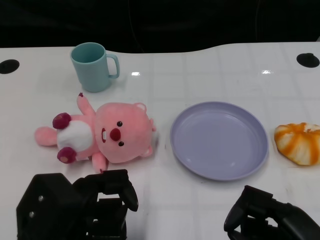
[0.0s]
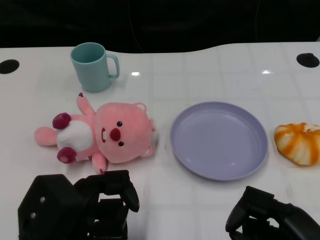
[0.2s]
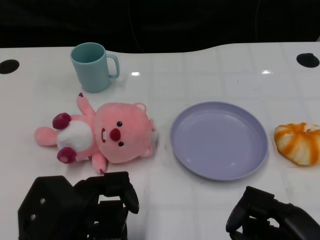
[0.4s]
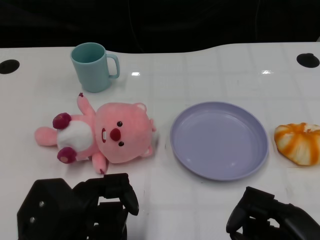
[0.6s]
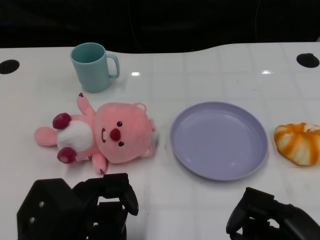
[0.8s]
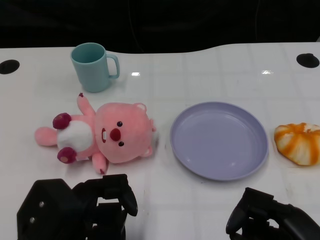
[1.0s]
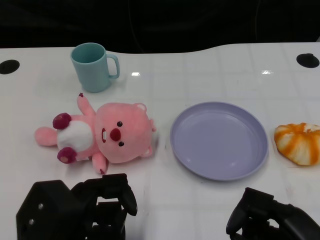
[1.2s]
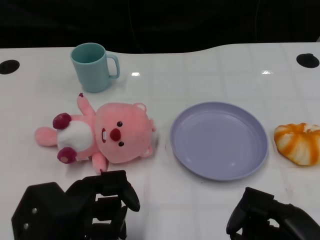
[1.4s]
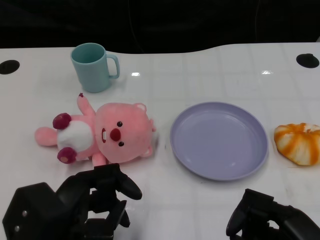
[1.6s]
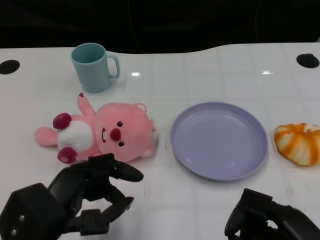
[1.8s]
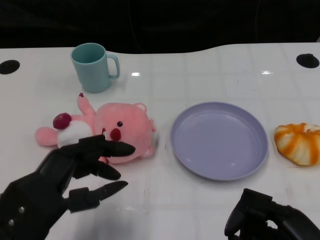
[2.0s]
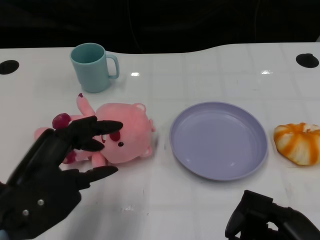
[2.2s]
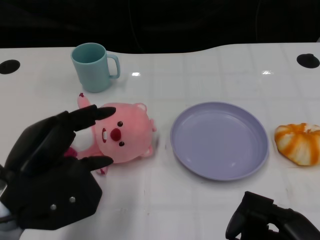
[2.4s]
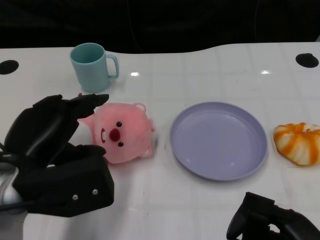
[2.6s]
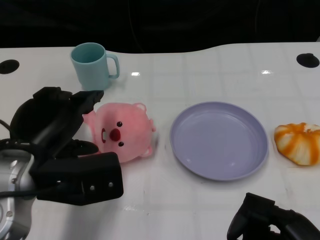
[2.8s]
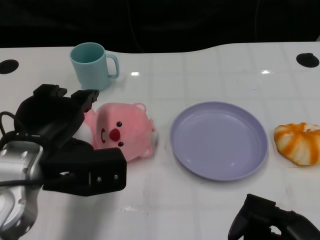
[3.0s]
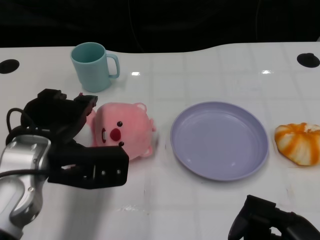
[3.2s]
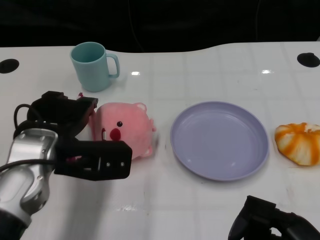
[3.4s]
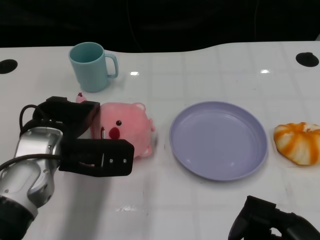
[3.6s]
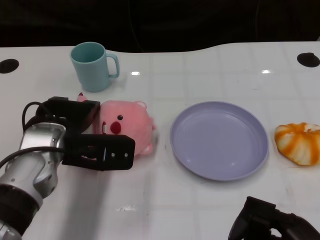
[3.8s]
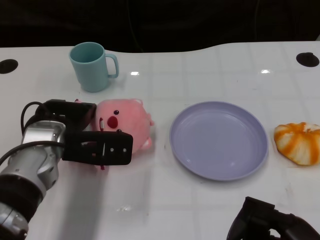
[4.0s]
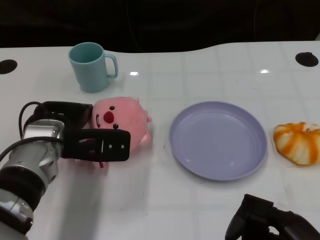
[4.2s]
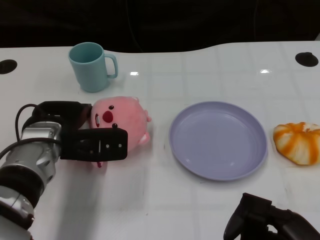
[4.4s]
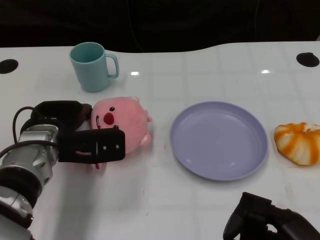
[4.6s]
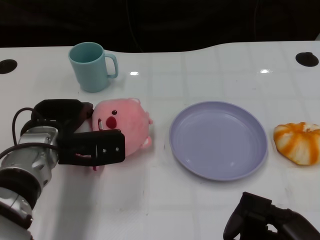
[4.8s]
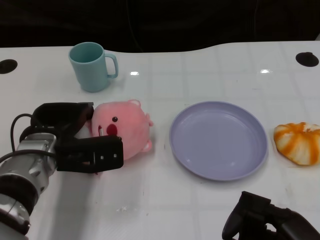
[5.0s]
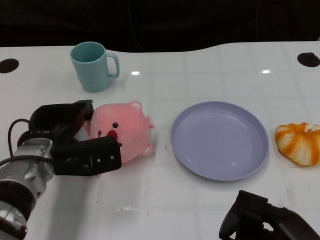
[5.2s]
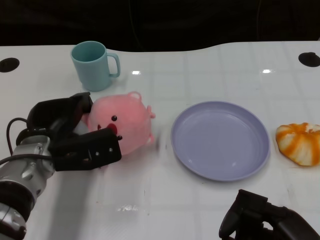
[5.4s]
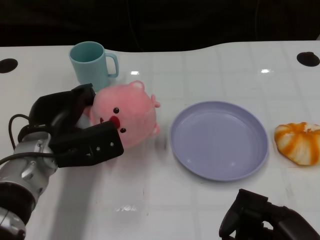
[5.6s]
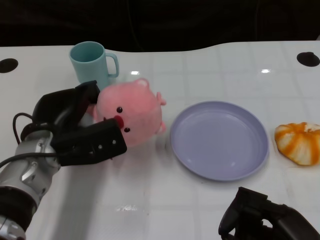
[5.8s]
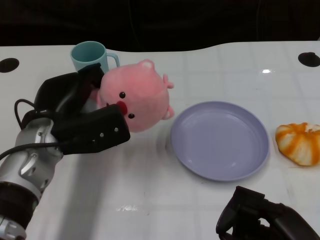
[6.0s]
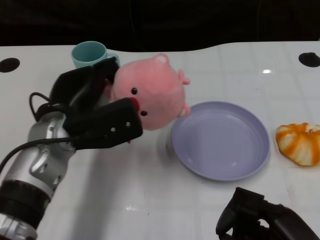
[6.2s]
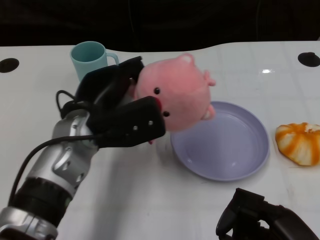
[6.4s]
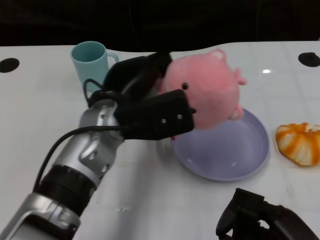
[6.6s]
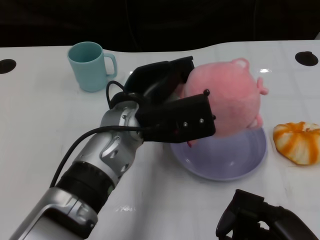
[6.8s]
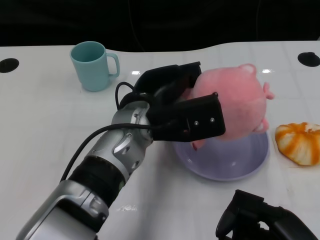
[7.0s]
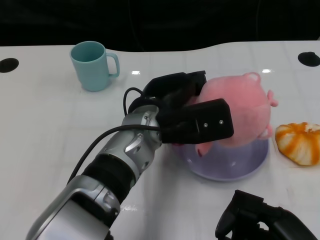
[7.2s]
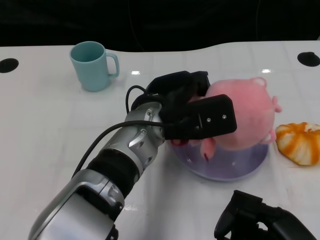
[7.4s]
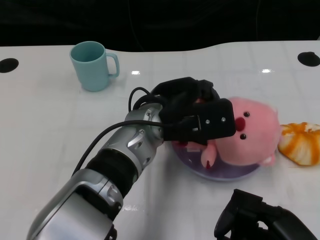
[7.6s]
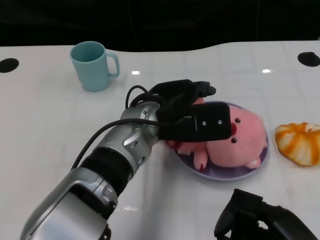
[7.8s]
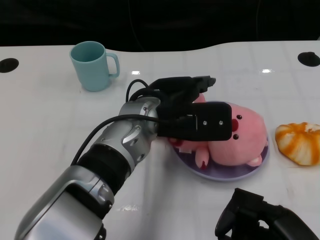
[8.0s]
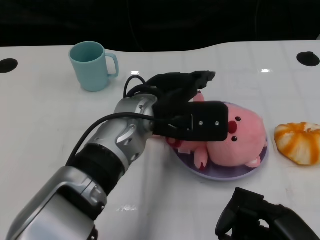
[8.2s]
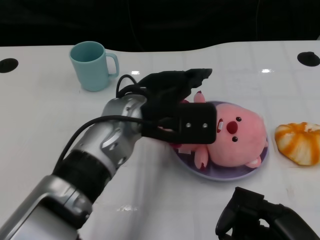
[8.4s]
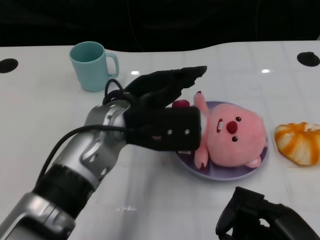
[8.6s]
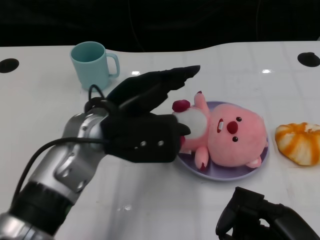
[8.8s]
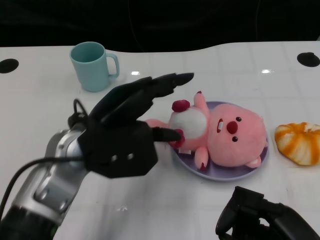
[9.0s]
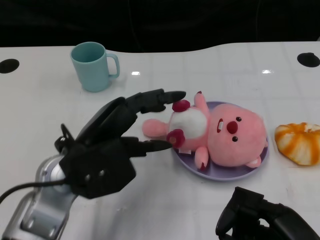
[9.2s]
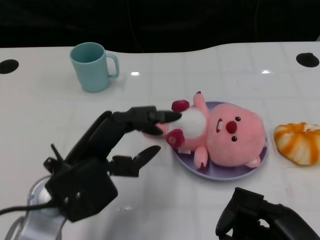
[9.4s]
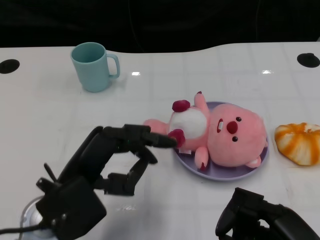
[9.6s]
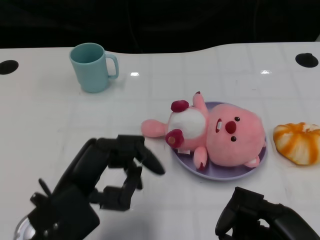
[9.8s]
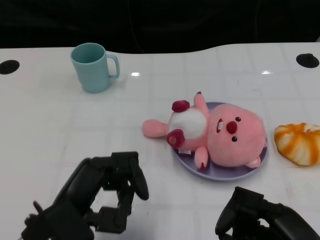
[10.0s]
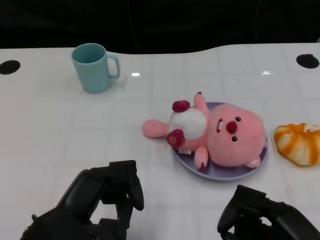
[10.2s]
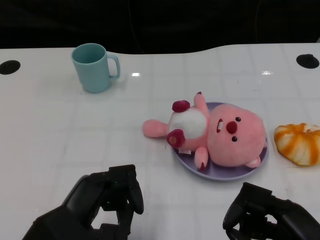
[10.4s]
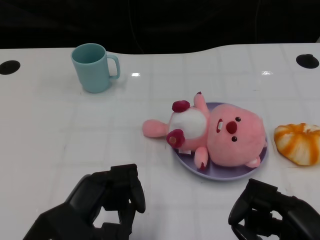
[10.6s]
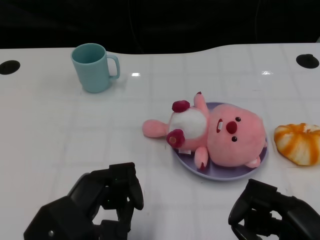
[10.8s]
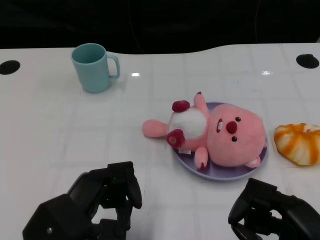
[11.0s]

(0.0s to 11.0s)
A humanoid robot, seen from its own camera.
Task of the whole recording: Pick up the doll on one side of the plate and place it into the plate.
Step, 1.2s - 5.6s: Grasp the pink doll with the left gripper.
Step, 5.8s - 8.4s: Place the pink doll into the plate with the left gripper.
1.6s - 3.2s: The left hand is displaced forward by approximately 10 cm.
3.2s - 4.8s: The left hand is displaced forward and downward by approximately 10 cm.
4.8s - 6.2s: The left hand moves roughly 5 cm.
6.2s - 7.8s: The left hand shifts about 10 cm to the right.
7.8s - 9.4s: The left hand travels to the left and backward by some 15 cm.
9.4s - 11.0s: The left hand shifts approximately 5 cm backward.

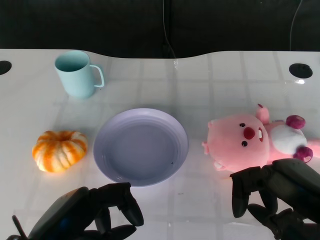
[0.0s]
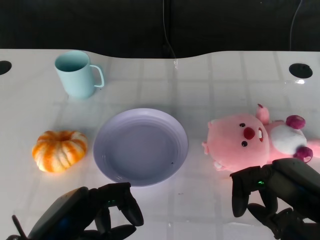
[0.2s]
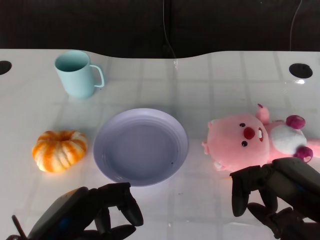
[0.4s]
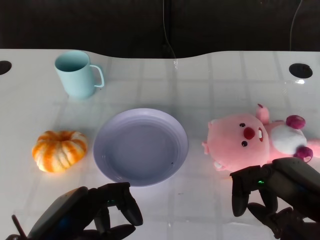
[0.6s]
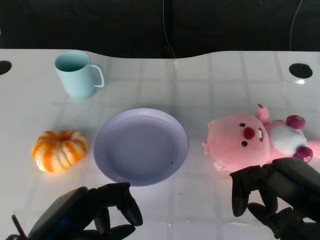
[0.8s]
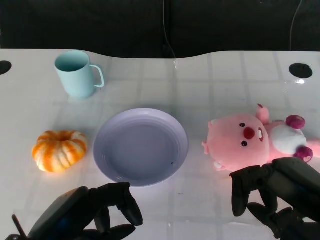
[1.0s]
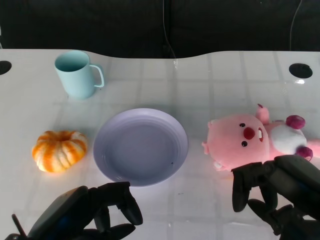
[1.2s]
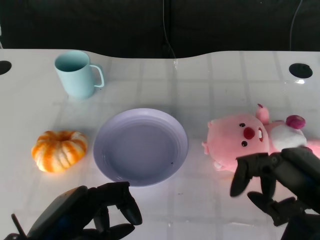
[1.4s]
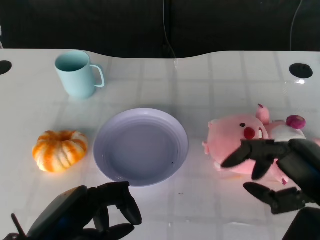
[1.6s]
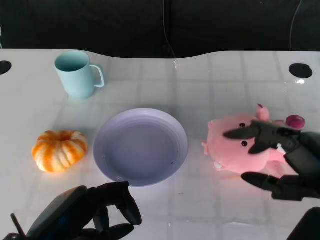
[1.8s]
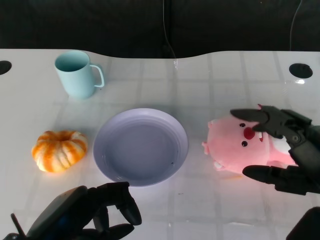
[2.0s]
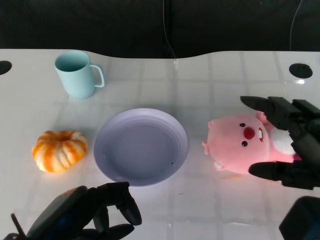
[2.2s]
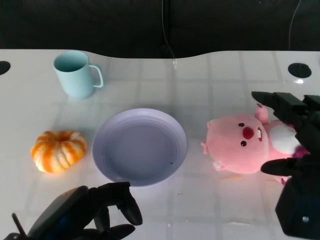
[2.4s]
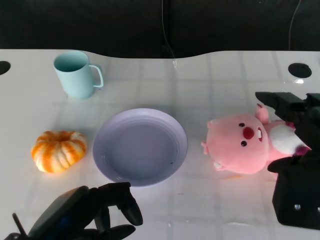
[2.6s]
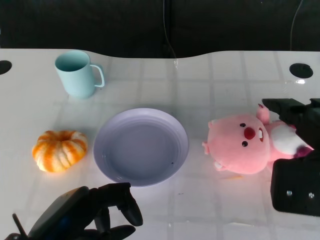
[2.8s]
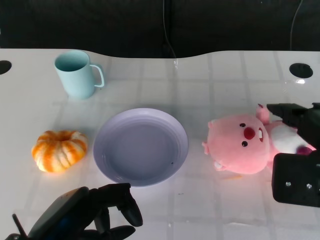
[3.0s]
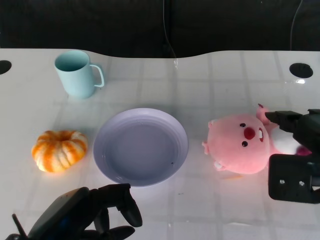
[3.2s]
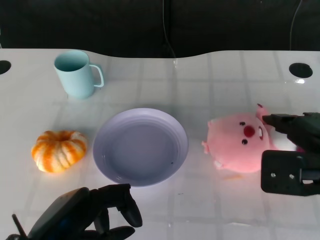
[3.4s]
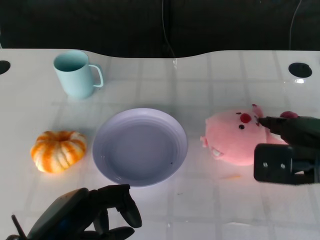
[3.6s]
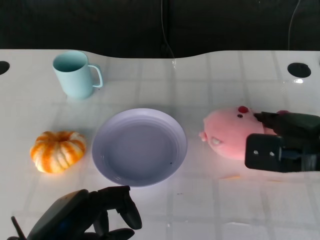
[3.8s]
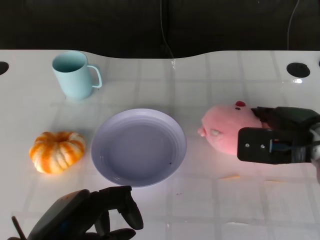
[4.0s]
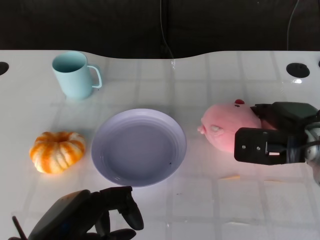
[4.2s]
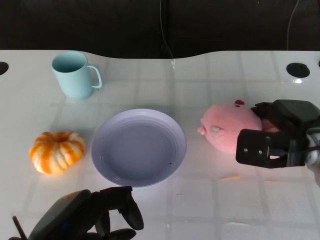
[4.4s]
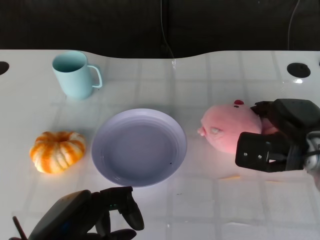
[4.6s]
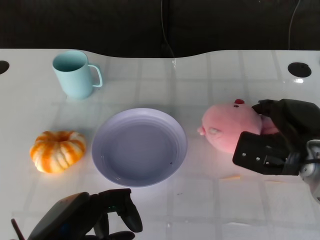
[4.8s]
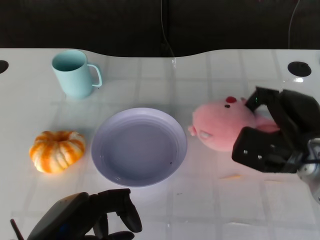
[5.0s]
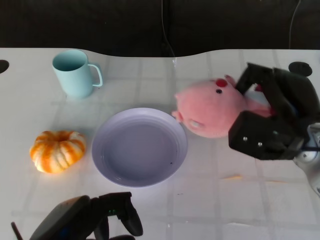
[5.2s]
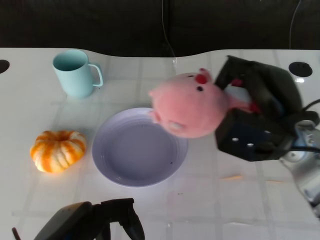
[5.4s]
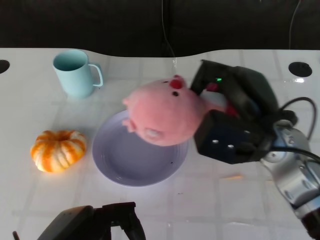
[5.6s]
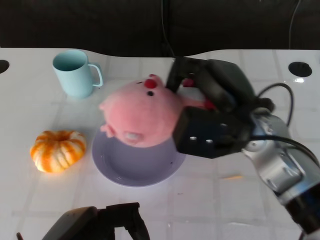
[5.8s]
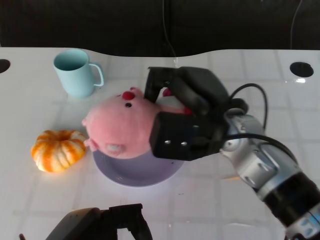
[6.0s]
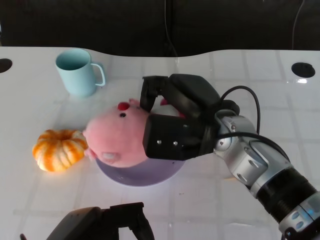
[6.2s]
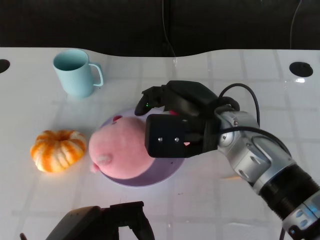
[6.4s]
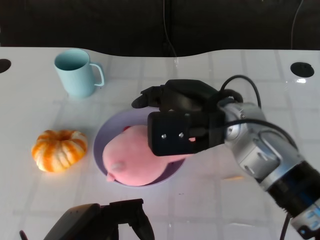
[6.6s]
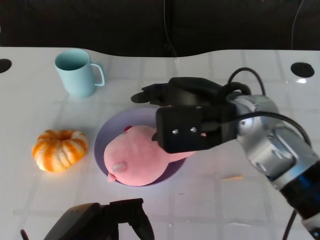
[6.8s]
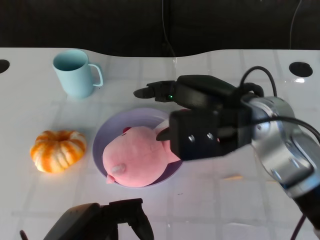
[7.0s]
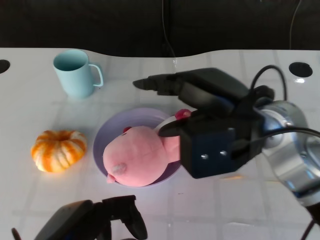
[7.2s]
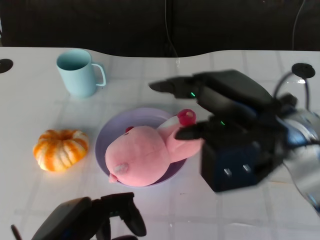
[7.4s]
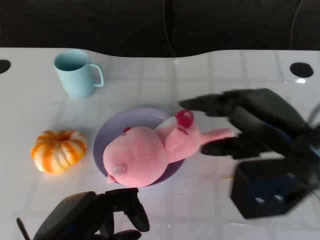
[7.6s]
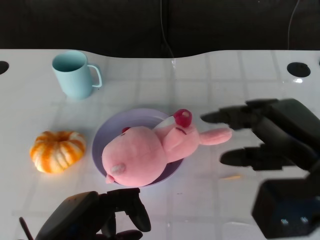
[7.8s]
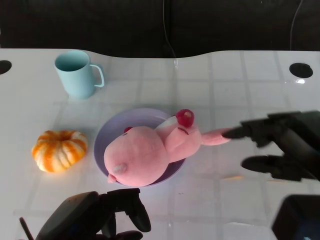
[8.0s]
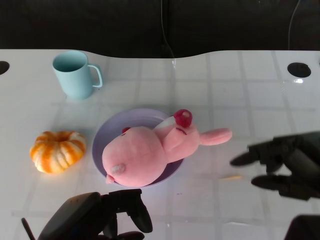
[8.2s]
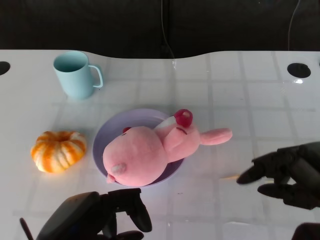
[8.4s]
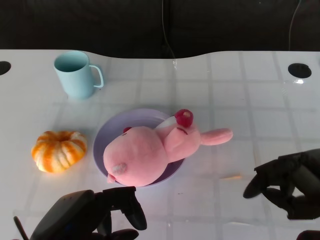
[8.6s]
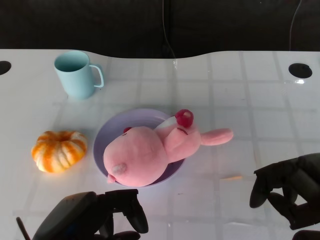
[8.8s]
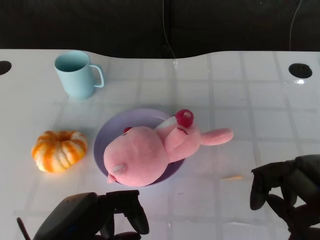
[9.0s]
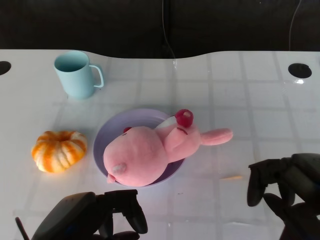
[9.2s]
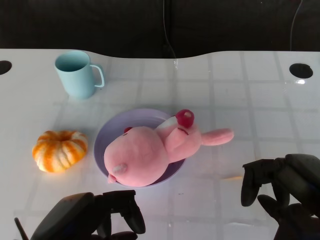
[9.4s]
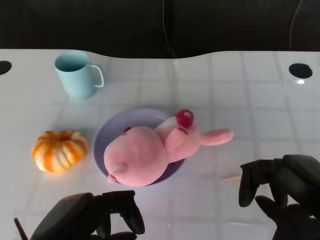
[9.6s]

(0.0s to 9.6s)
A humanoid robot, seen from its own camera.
Task of the whole recording: Pick up the doll on the other side of the plate and place it into the plate.
Step, 1.2s - 5.0s: Grasp the pink doll with the right gripper.
Step, 5.2s - 6.8s: Place the pink doll into the plate with the right gripper.
1.6s - 3.2s: The right hand goes roughly 5 cm forward.
3.2s - 4.8s: The right hand shifts some 10 cm downward and forward.
4.8s - 6.4s: The right hand moves to the left and upward, approximately 15 cm.
6.4s - 8.0s: The right hand shifts approximately 20 cm to the right and backward.
8.0s - 9.6s: The right hand shifts by approximately 5 cm.

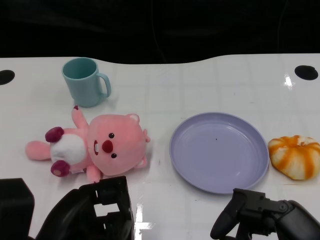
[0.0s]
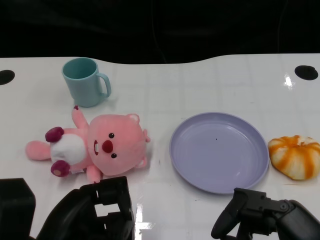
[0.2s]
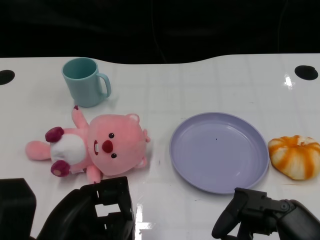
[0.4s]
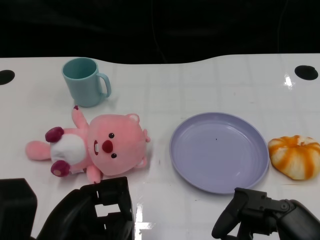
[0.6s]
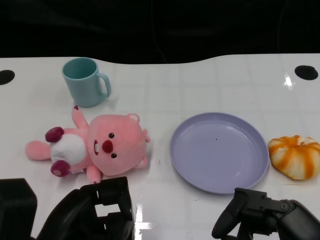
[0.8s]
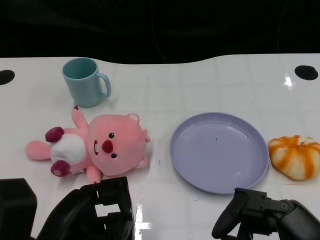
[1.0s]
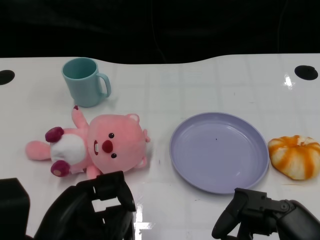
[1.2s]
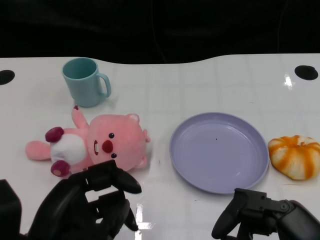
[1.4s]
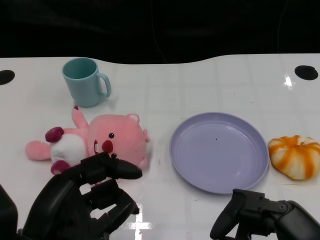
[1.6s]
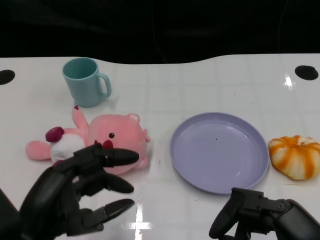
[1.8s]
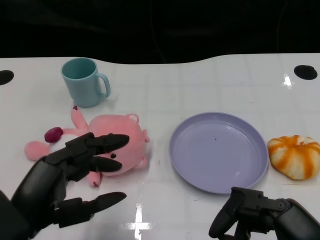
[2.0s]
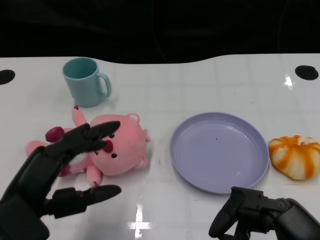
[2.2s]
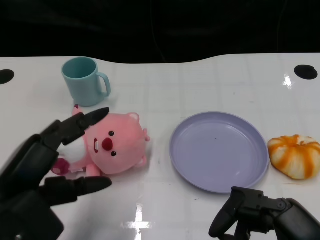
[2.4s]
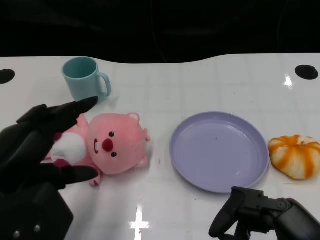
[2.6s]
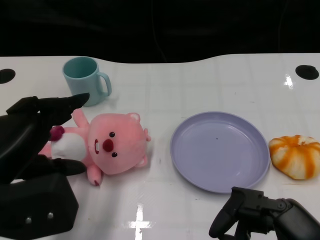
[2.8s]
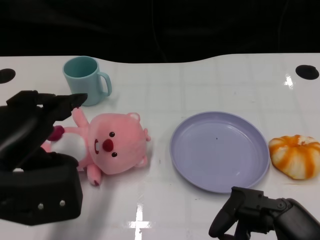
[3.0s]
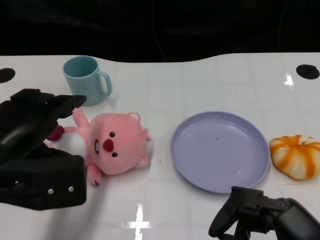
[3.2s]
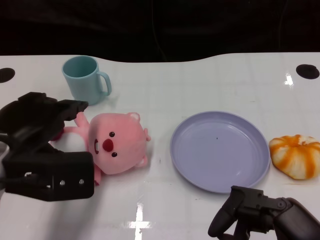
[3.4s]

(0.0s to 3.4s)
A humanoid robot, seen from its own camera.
Task of the whole recording: Pick up the doll on one side of the plate and place it into the plate.
1.6s - 3.4s: The left hand moves forward, approximately 10 cm.
